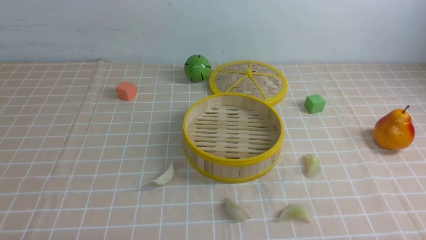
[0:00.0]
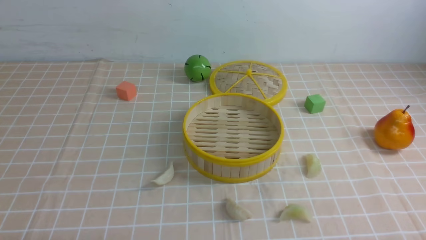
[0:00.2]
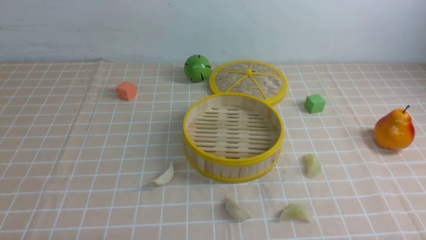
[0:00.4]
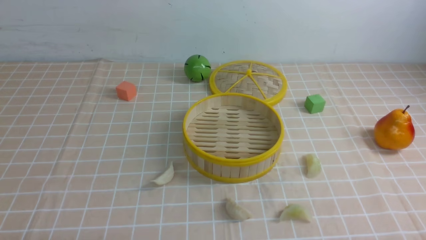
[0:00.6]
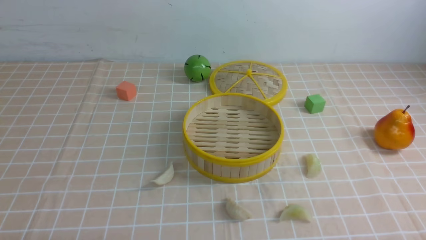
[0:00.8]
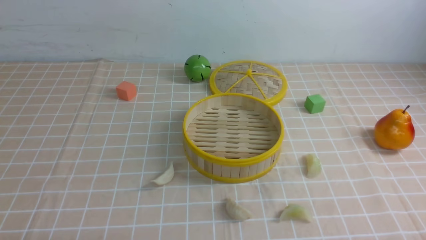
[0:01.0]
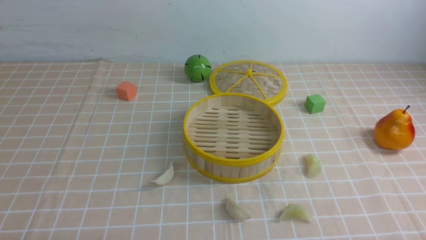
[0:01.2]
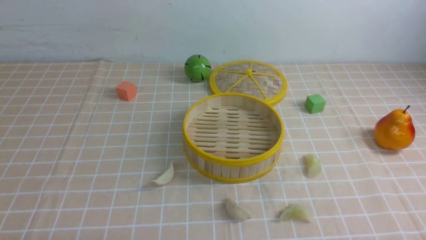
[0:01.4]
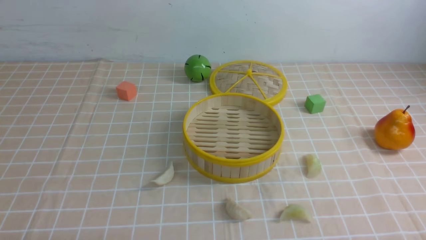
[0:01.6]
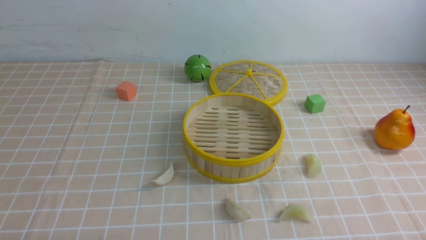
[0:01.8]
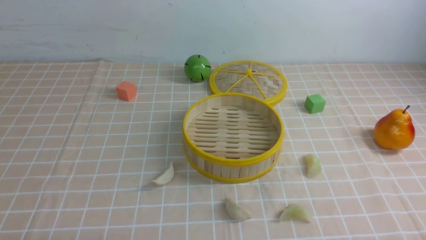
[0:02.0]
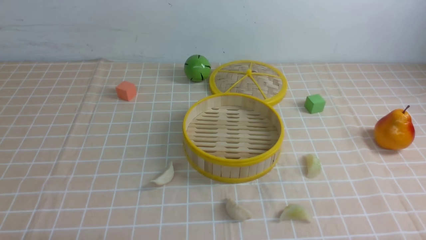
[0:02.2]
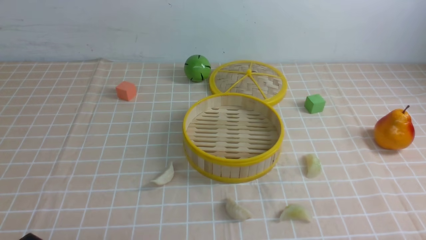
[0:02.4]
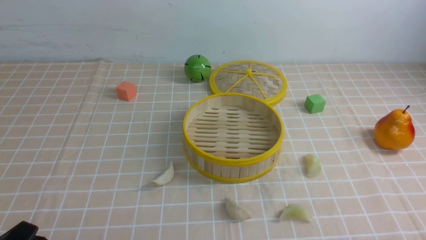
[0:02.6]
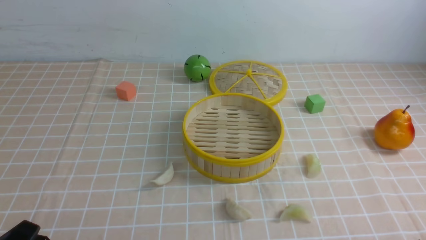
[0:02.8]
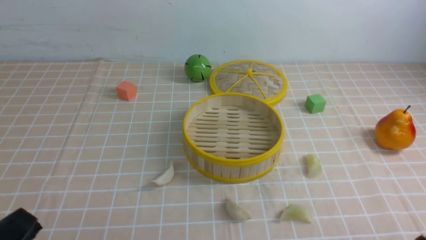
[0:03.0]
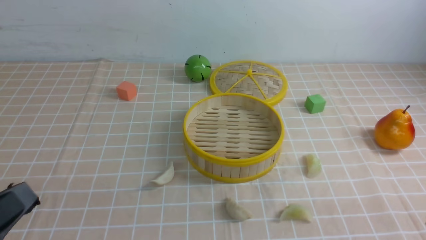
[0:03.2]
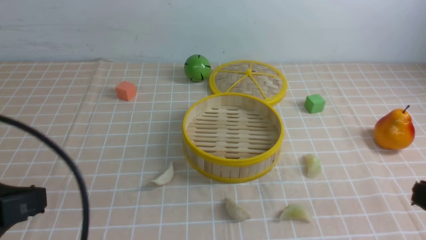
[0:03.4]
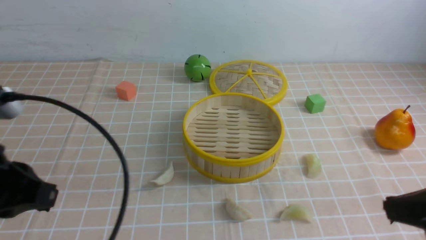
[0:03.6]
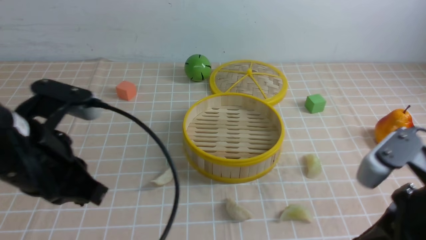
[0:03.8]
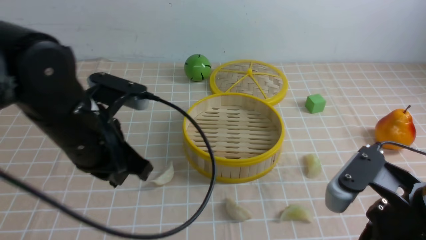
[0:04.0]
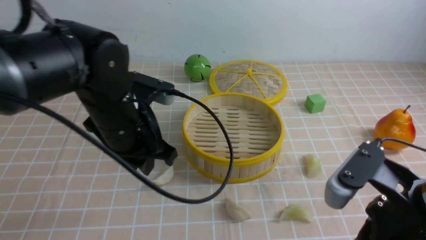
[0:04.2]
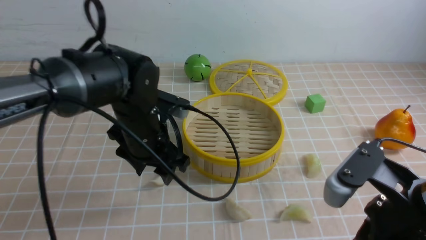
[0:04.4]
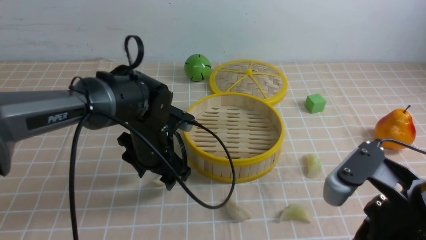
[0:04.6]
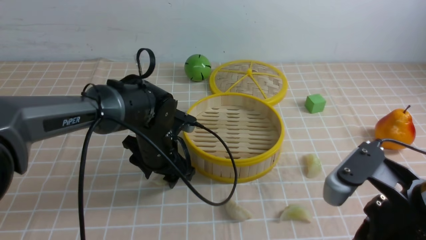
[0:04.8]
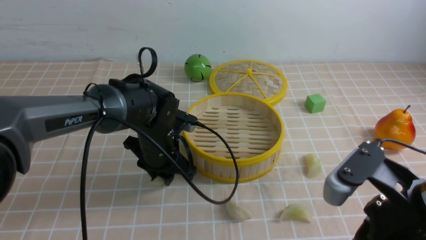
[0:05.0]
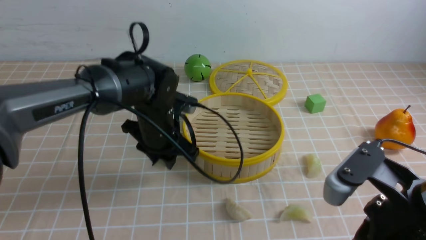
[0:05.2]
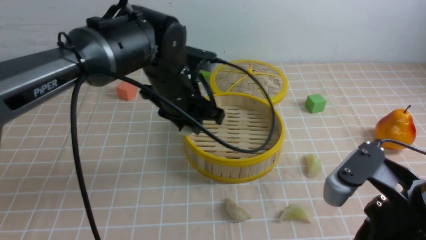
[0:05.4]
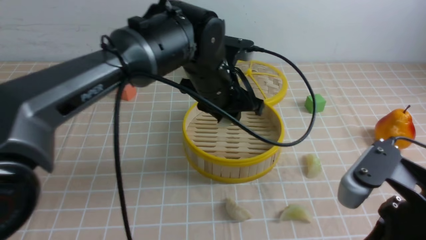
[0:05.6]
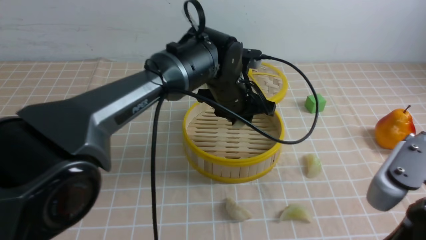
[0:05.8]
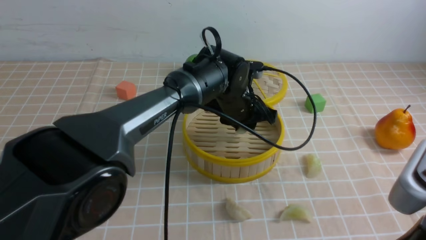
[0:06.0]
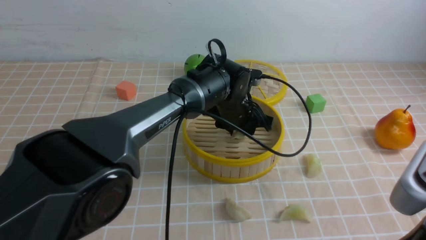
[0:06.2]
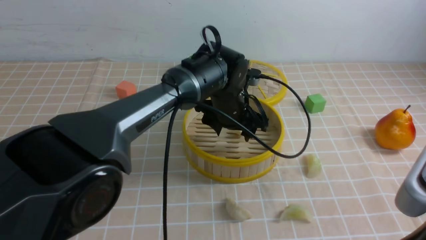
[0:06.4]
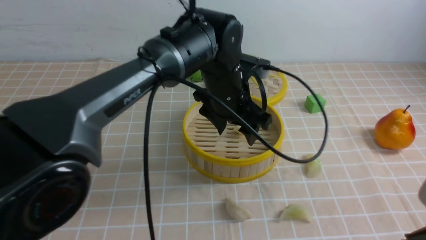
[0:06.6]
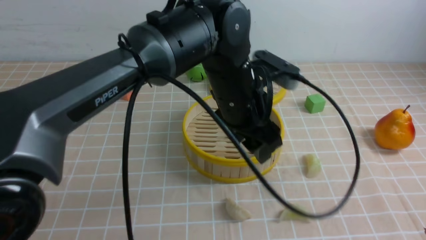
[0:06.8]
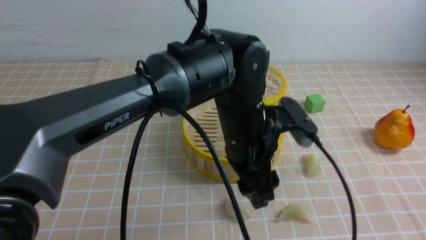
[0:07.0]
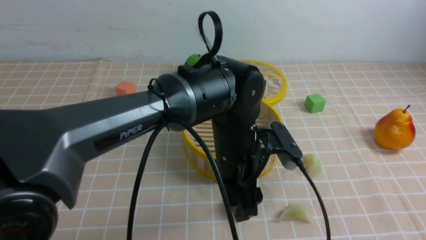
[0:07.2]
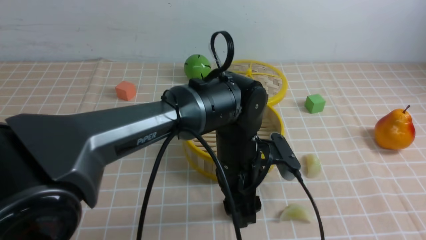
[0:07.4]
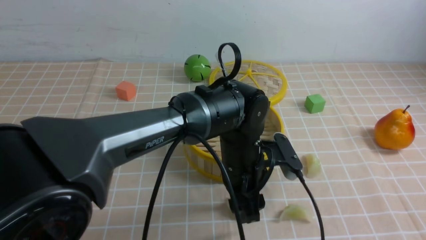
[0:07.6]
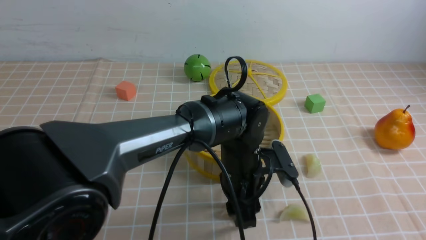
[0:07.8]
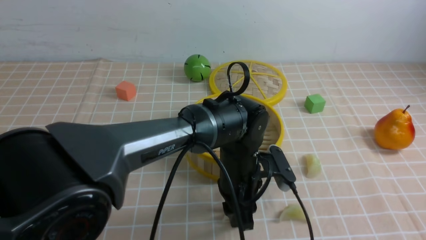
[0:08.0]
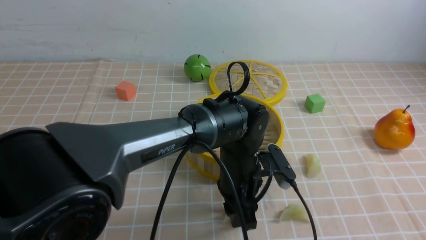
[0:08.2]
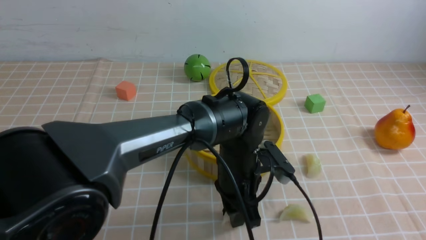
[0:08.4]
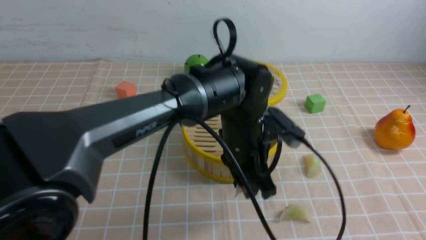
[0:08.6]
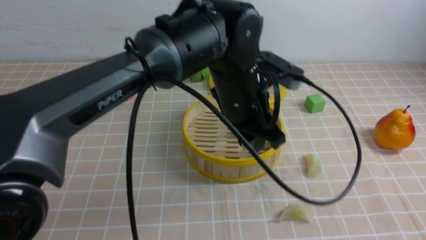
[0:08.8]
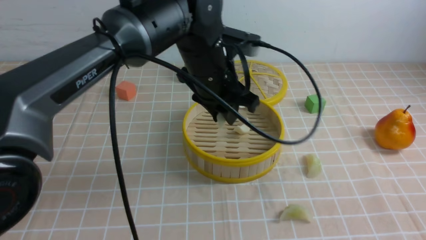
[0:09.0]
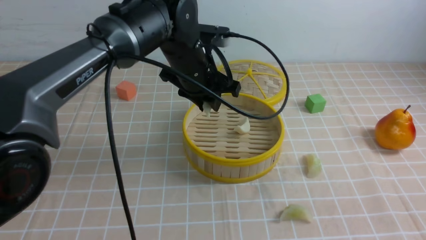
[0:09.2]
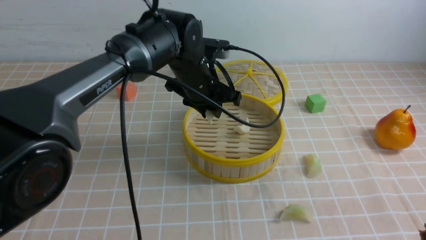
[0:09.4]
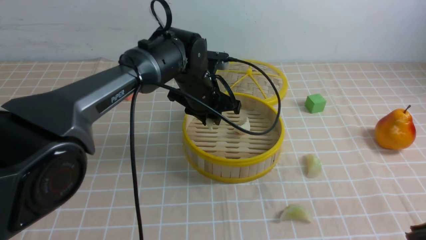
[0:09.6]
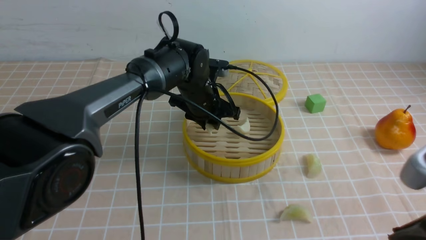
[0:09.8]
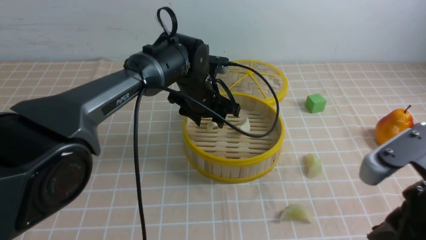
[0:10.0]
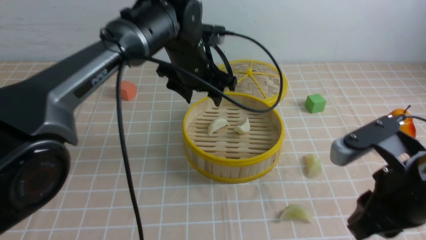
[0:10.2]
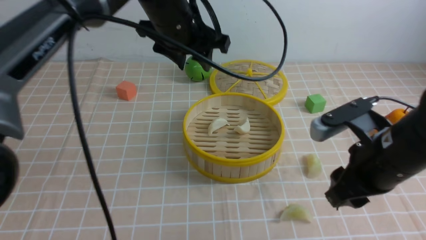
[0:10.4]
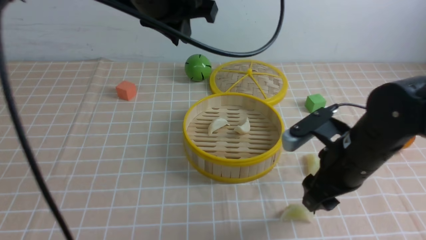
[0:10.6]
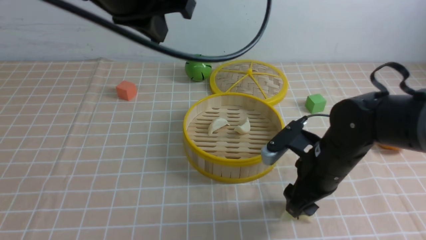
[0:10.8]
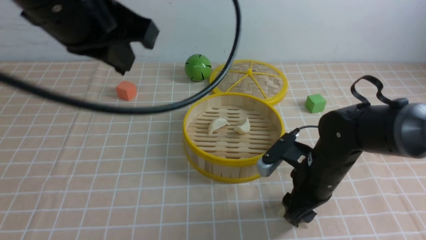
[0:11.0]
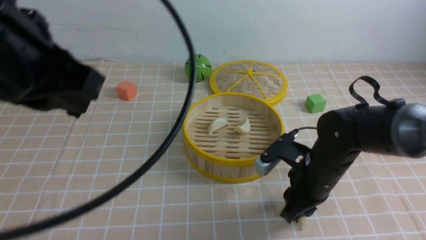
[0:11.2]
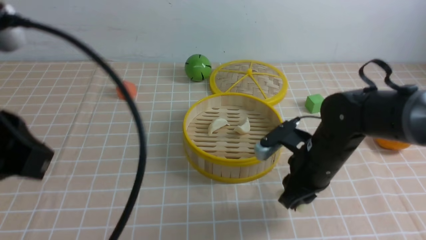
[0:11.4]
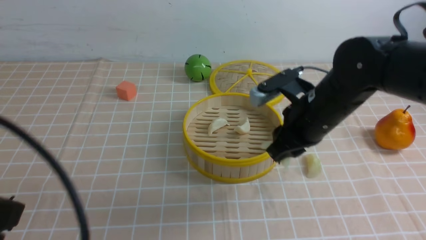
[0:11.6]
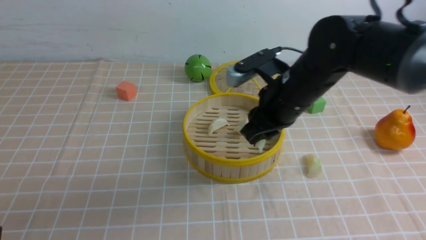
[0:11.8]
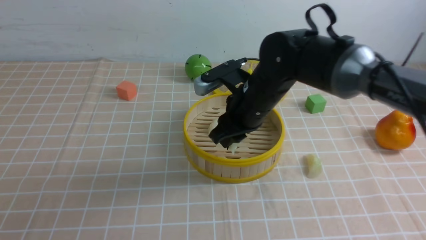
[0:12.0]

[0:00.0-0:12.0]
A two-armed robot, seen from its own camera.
Task of the whole recording: put the dumplings into the steamer on the table with the brown tablecloth.
Step, 0.0 to 4.8 s: use the left arm to grab a dumpling.
Step, 5.0 to 6.4 s: use the left arm to put the dumpling into the steamer.
Step, 6.6 to 8.0 s: use the left arm to grab a dumpling.
Step, 8.4 to 10.2 s: use the left arm to put the dumpling into the steamer.
Step, 10.4 to 11.0 s: use the right arm to grab a dumpling.
1.6 to 3.0 s: The left gripper goes approximately 5 cm upward.
3.0 to 4.4 s: The right gripper goes about 15 cm forward, to the left and upward, and closes its fingers. Meanwhile the left gripper travels forward and to the right by roughly 30 cm, and closes and opens again.
4.4 to 6.0 s: The right gripper ends up approximately 5 cm from where it was, while the left gripper travels to the right and forward by approximately 15 cm.
6.0 to 7.6 s: The left gripper travels backward by roughly 10 cm, and opens up. The right gripper moves to the right, approximately 5 cm.
7.6 to 9.0 s: The left gripper heads upward, covering some 10 cm, and closes.
9.0 to 10.4 s: The right gripper goes some 20 cm forward, downward and to the left, and opens. Meanwhile the left gripper travels to the left by about 5 cm.
10.4 to 12.0 s: The right gripper moves forward and to the left, about 20 cm, while the left gripper heads backward and to the left, covering roughly 40 cm, and closes up.

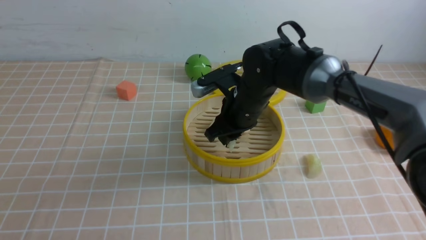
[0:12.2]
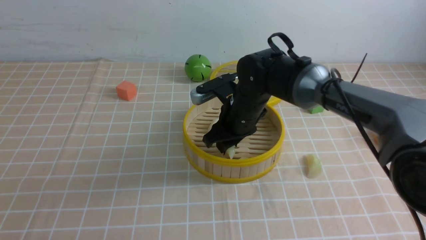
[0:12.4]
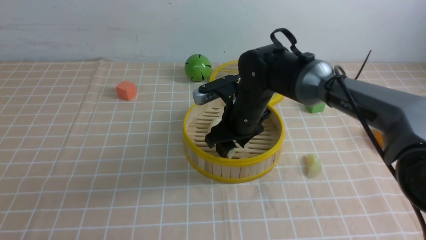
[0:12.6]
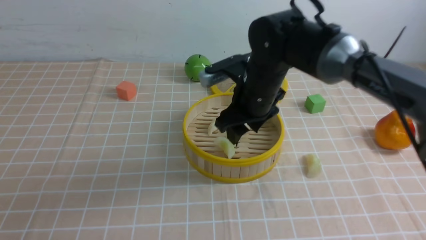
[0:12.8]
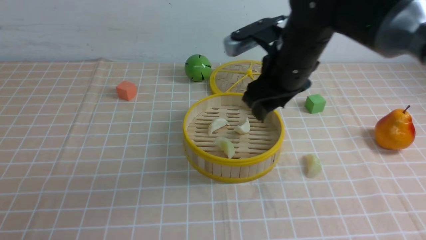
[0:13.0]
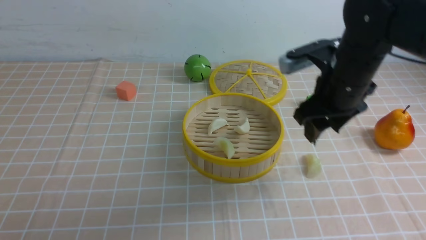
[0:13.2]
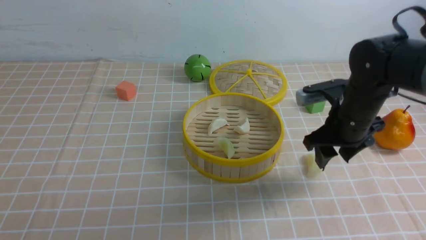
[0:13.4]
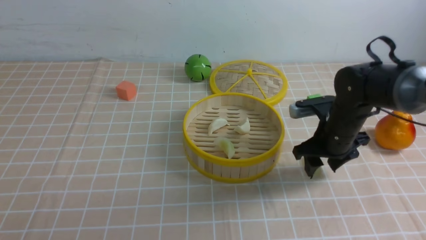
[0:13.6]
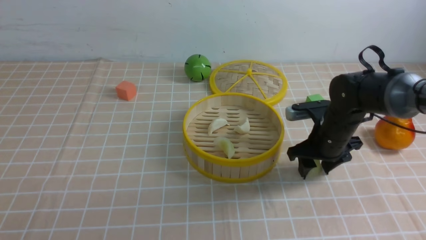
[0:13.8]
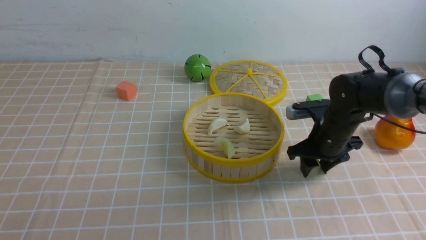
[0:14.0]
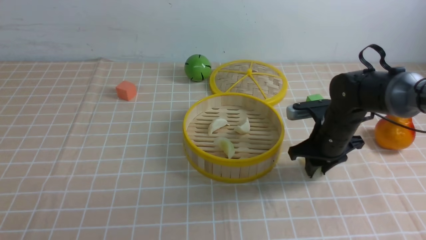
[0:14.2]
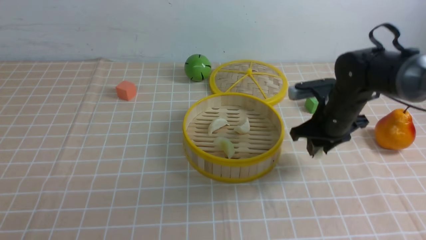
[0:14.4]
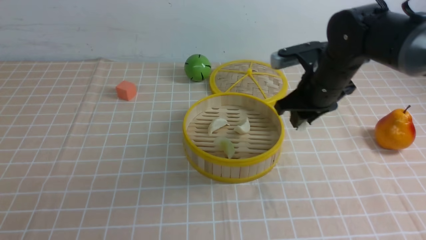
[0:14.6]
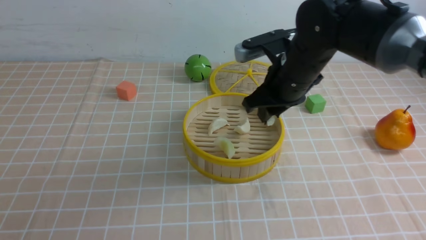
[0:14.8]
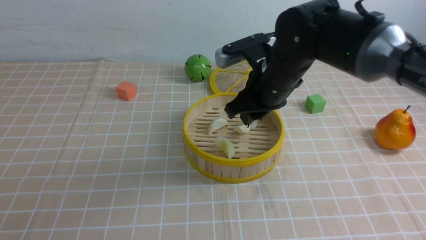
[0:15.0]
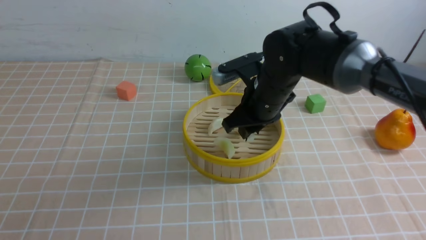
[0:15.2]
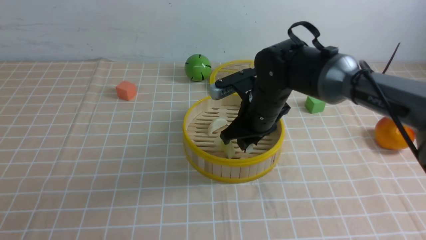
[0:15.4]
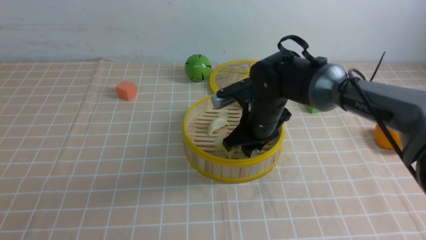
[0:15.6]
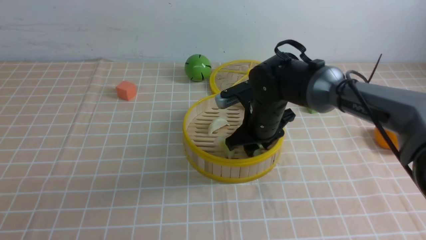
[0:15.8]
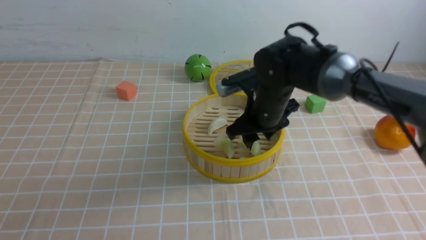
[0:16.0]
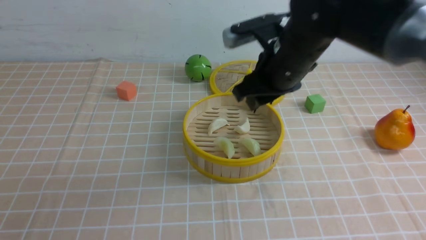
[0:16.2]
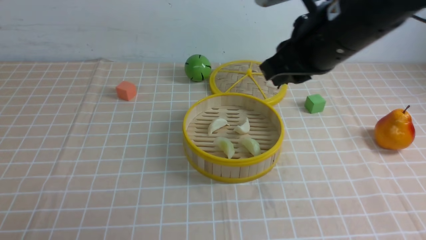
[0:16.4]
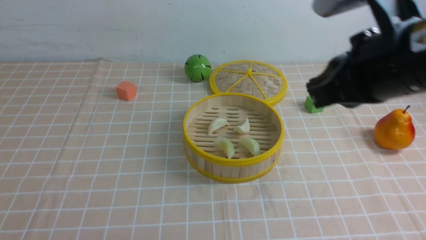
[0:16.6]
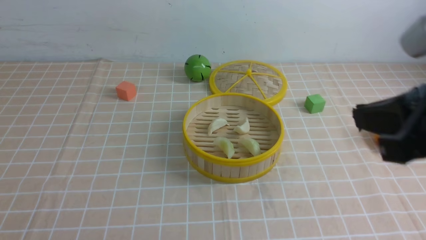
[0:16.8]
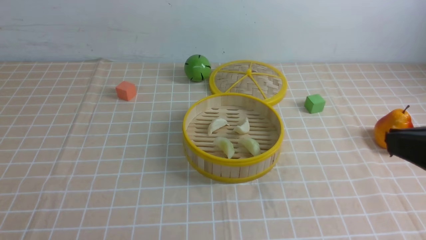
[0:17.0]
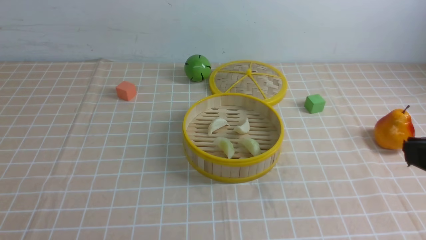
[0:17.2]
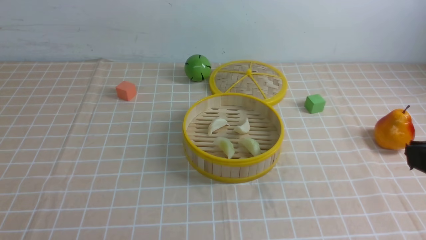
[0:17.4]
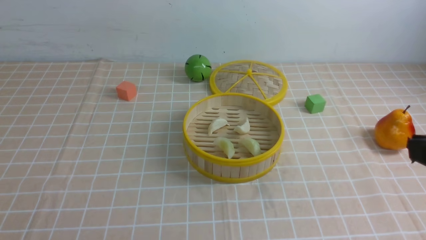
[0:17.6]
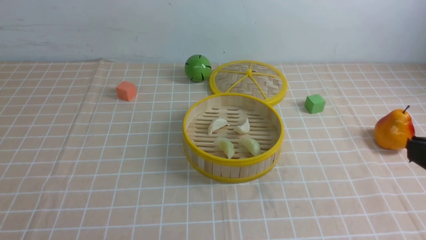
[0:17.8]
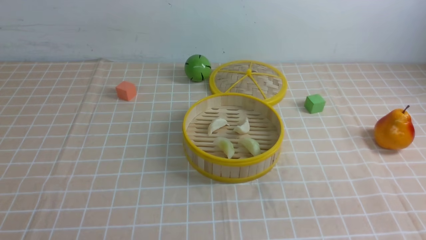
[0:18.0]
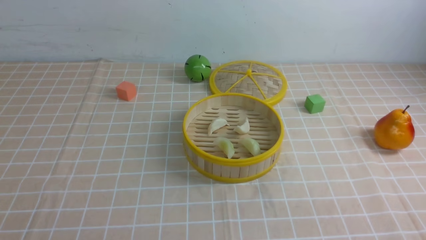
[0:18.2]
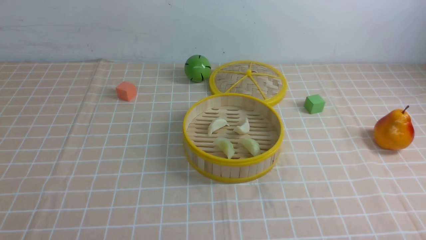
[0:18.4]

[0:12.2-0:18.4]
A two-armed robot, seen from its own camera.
Task of the whole recording: put the dumplings into the steamer on the table with the brown tablecloth.
Step, 12.8 to 14.0 s: use the right arm to grab a dumpling.
Step, 14.2 to 16.2 s: use the right arm to put the dumpling into the steamer.
12.2 to 13.8 s: The right gripper goes approximately 15 cm to the right and downward, and opens its fingers.
13.8 to 15.4 s: The right gripper is displaced to the left and upward by roughly 15 cm, and closes its fingers.
15.4 to 16.8 s: The right gripper is displaced backward, upward and to the right by roughly 30 cm, and closes up.
16.8 to 18.4 s: The right gripper goes approximately 25 cm downward, backward and to the right.
